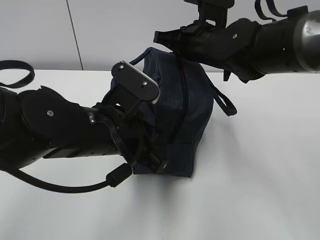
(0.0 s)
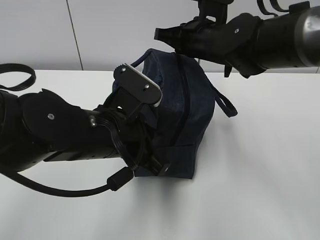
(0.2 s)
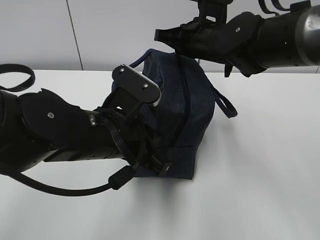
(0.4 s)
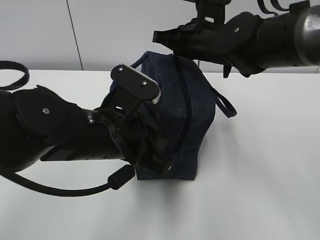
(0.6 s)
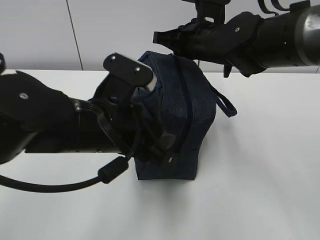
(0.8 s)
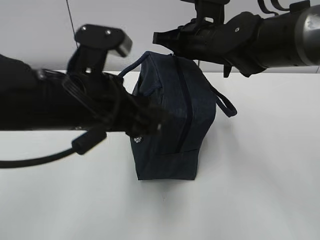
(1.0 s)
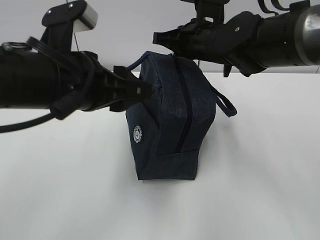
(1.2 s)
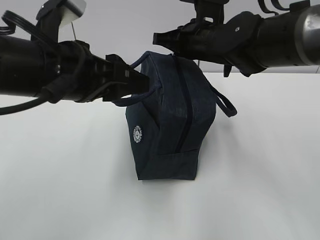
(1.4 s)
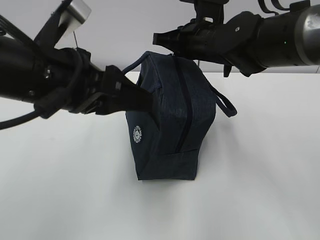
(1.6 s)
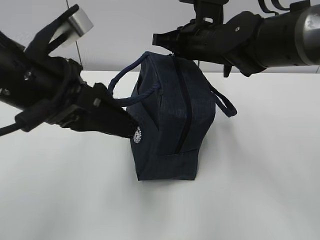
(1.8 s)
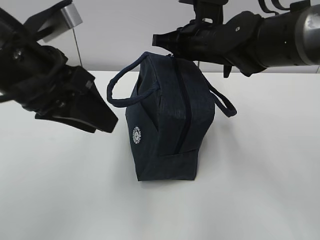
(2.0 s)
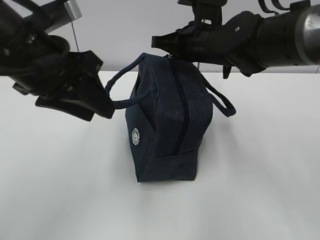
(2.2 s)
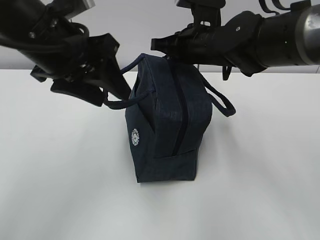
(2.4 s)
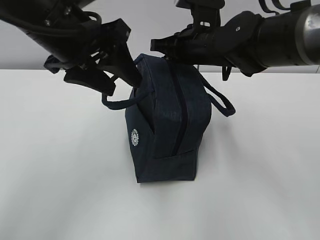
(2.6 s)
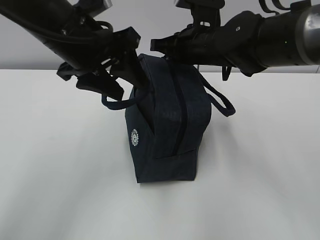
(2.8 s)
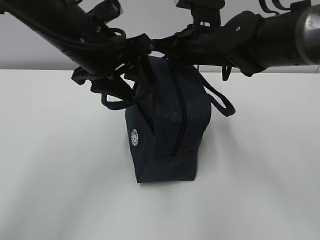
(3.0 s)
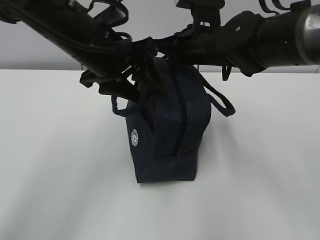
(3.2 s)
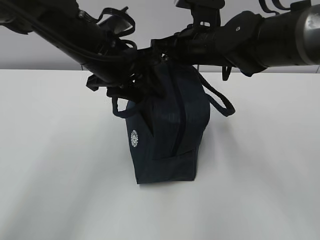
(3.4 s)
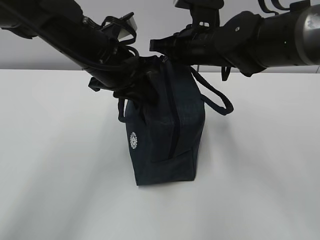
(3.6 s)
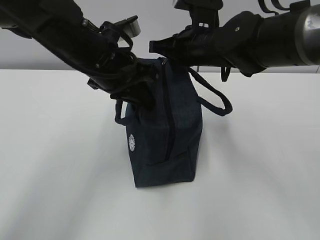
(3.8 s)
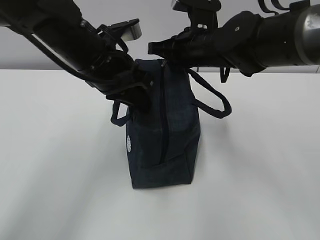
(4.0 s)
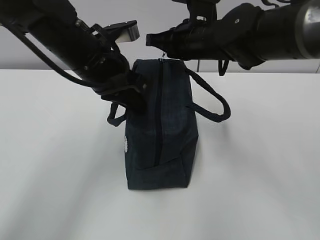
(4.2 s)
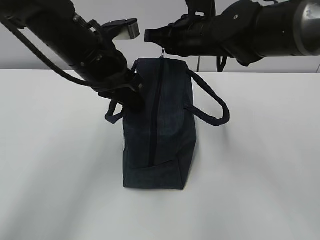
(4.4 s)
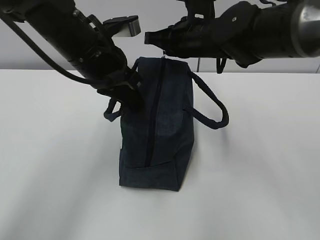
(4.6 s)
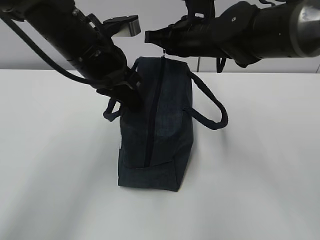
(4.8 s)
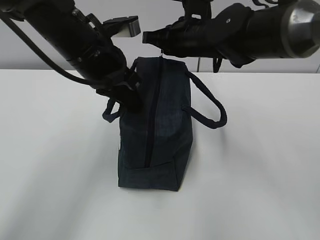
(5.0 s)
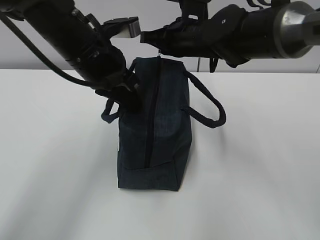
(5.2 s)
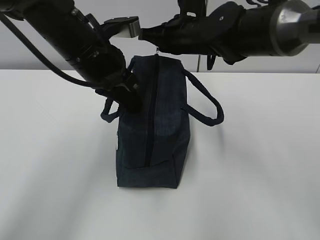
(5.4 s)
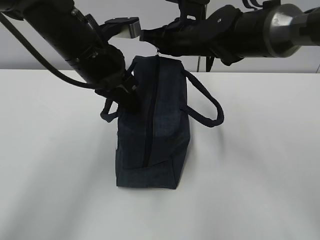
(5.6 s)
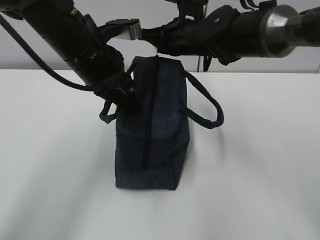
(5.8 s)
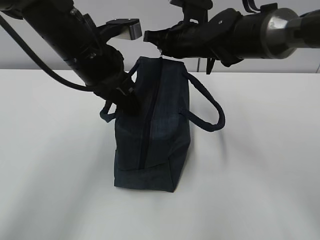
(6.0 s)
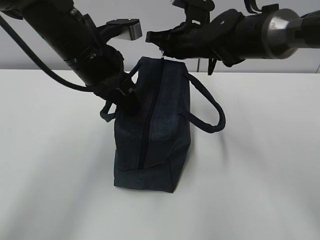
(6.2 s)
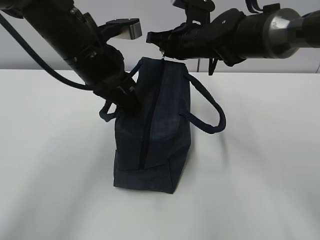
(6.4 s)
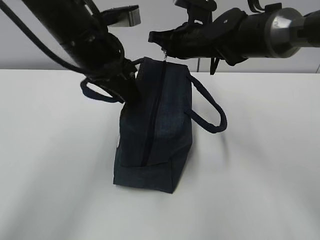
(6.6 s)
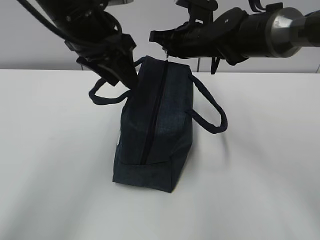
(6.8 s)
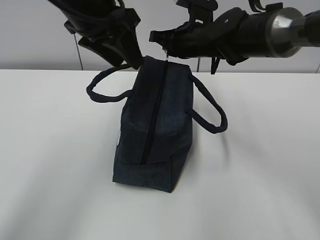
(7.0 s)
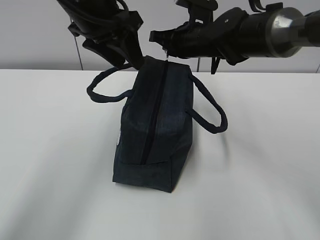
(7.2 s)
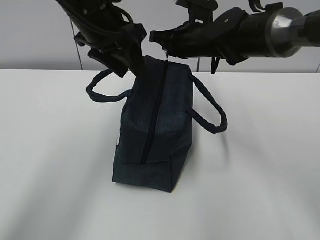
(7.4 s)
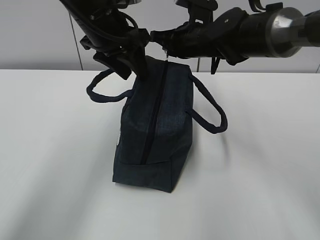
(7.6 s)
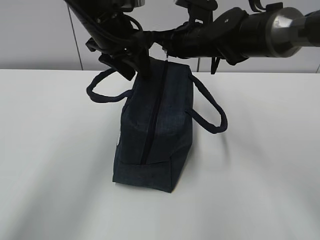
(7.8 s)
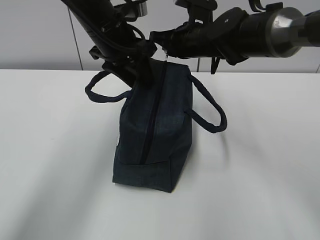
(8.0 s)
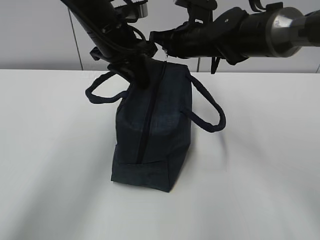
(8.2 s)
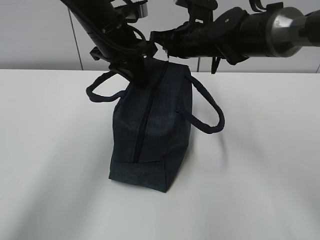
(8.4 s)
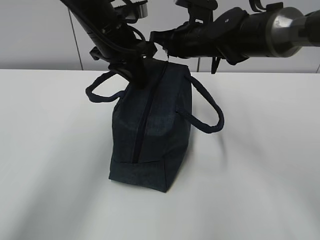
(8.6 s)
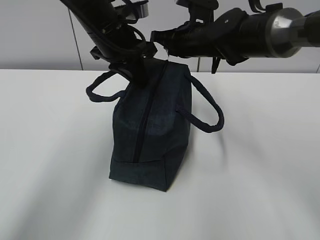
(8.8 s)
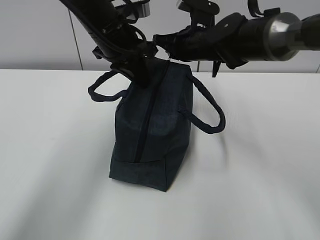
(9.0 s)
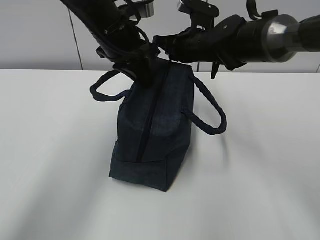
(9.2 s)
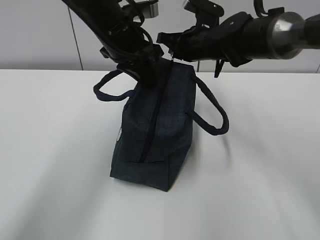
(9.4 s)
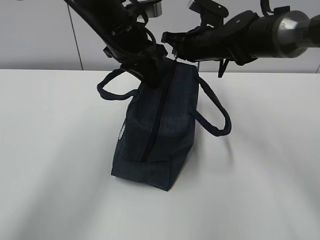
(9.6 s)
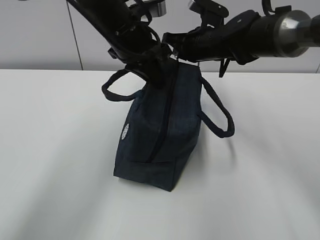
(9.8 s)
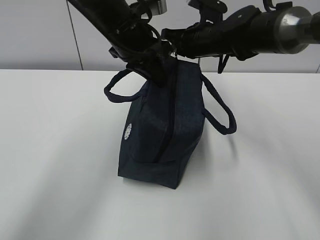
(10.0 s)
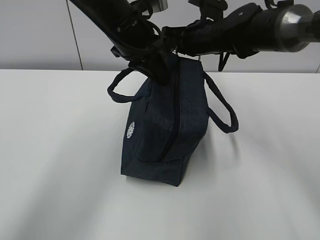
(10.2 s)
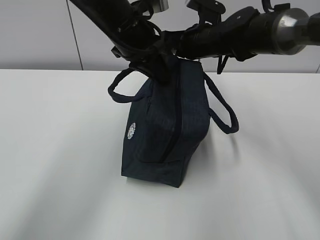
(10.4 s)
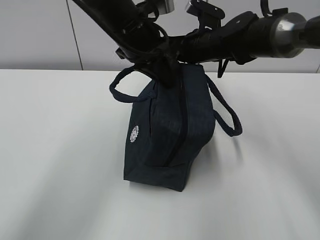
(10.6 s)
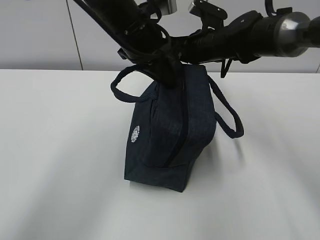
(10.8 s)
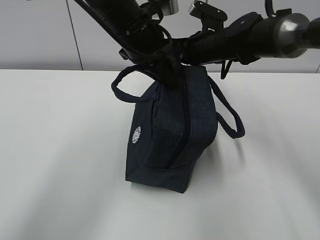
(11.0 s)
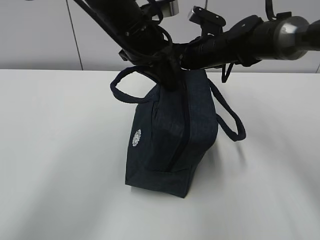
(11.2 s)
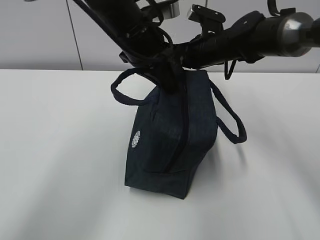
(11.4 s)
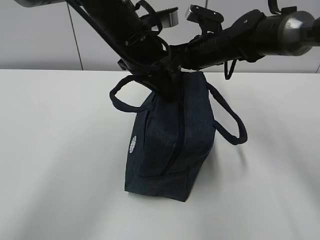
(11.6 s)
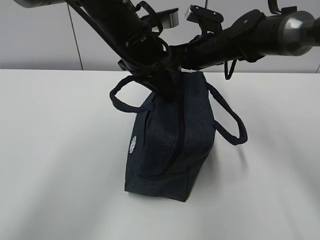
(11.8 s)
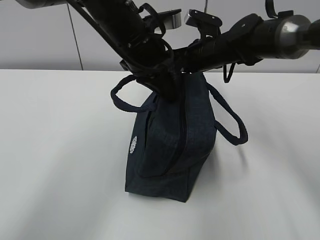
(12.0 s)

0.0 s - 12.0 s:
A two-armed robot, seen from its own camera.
0.0 s - 1.6 s: The left gripper goes approximately 10 cm upward and to the left, and opens up.
1.6 s - 3.0 s: The left gripper moves forward, about 10 cm.
3.0 s - 4.4 s: The left gripper closes its fingers.
4.4 s - 6.0 s: The right gripper shifts by about 5 cm.
6.0 s - 7.6 s: The left gripper is displaced forward by about 5 cm, and opens its fingers.
7.6 s - 9.0 s: The left gripper closes its fingers.
9.0 s - 12.0 s: The grippers make only small movements.

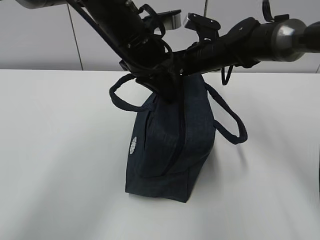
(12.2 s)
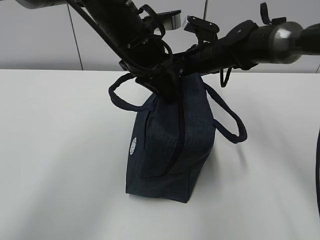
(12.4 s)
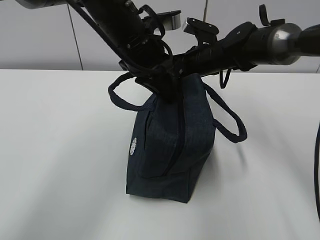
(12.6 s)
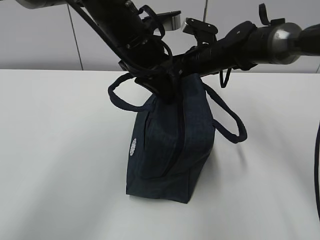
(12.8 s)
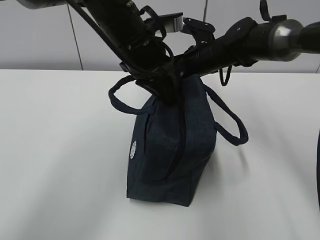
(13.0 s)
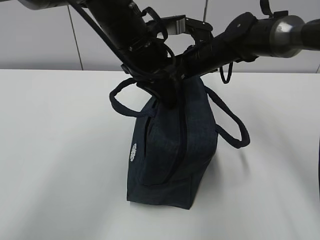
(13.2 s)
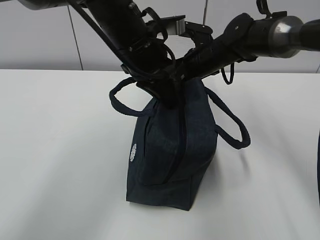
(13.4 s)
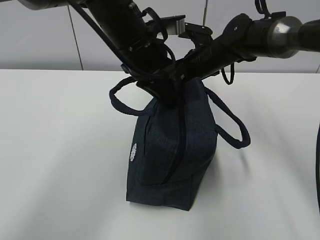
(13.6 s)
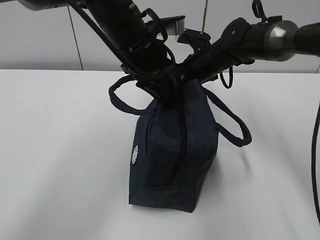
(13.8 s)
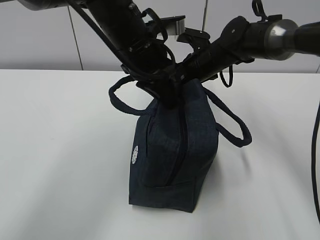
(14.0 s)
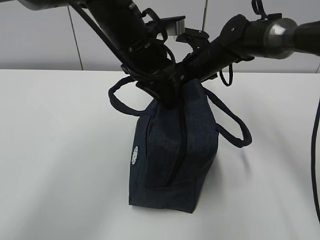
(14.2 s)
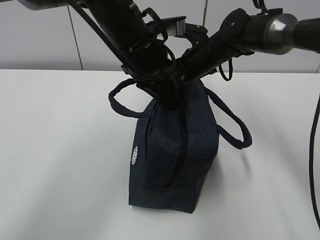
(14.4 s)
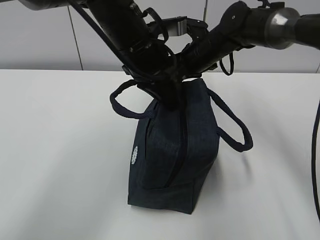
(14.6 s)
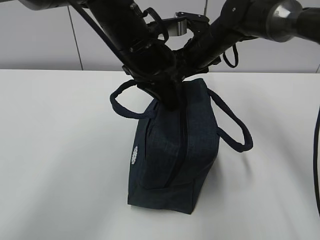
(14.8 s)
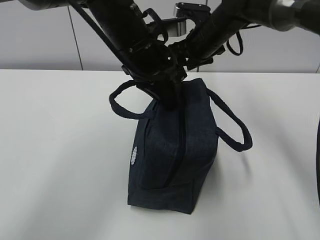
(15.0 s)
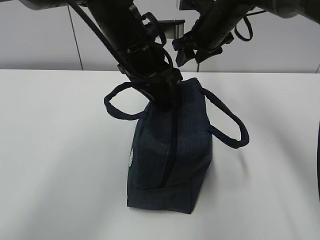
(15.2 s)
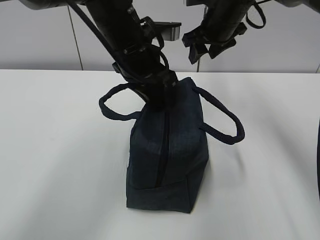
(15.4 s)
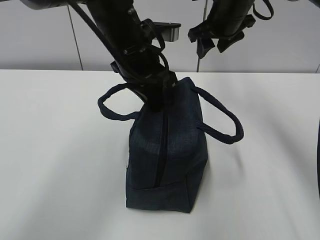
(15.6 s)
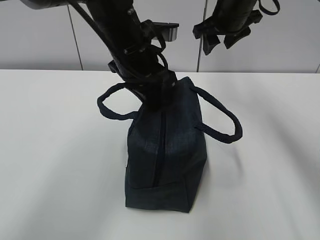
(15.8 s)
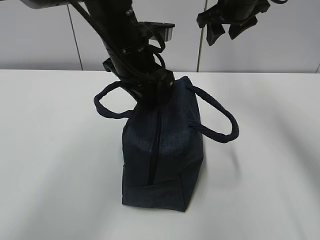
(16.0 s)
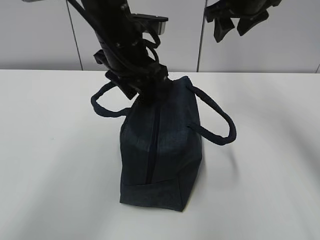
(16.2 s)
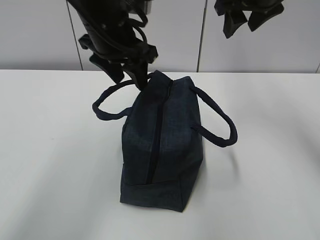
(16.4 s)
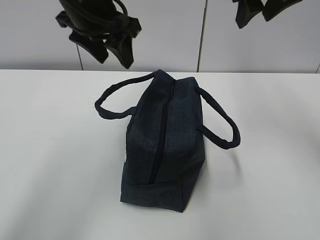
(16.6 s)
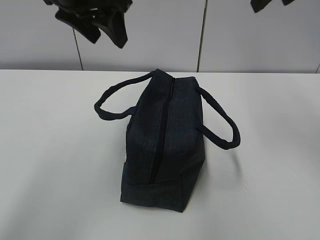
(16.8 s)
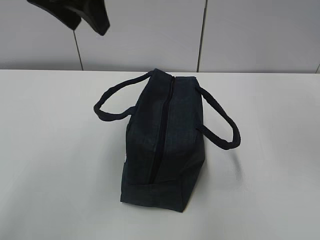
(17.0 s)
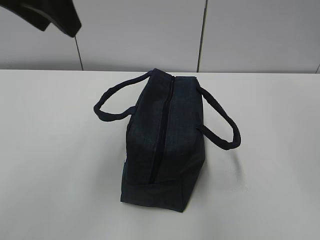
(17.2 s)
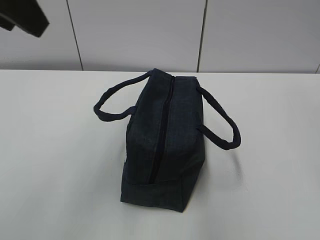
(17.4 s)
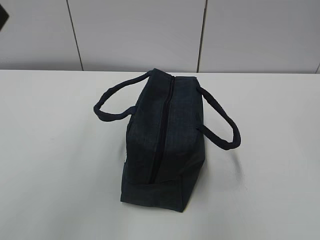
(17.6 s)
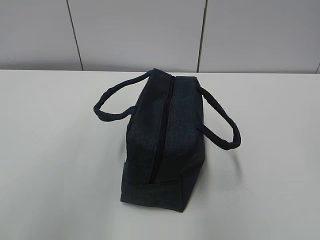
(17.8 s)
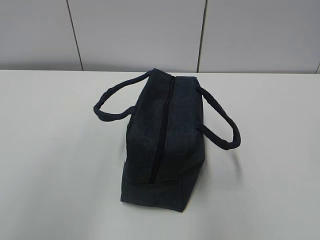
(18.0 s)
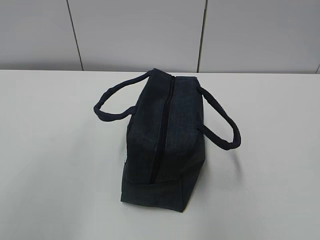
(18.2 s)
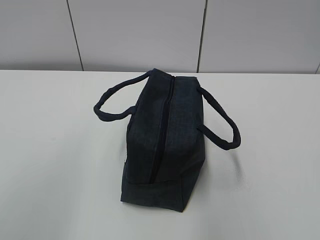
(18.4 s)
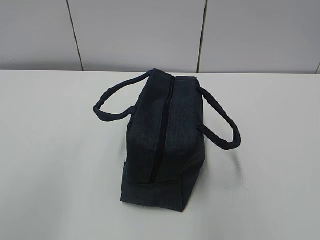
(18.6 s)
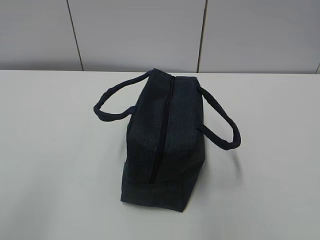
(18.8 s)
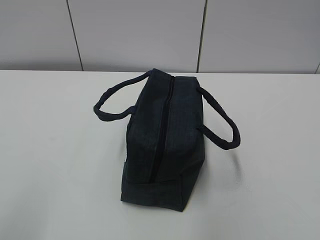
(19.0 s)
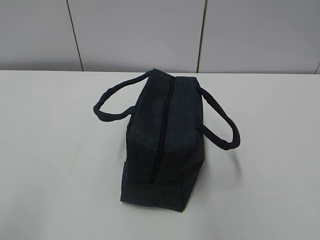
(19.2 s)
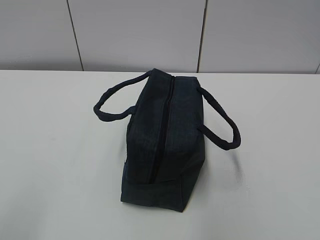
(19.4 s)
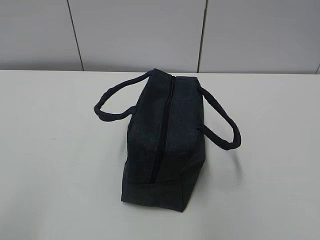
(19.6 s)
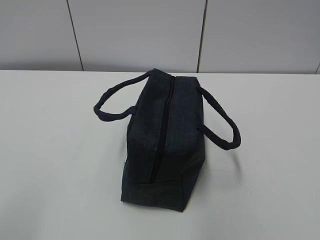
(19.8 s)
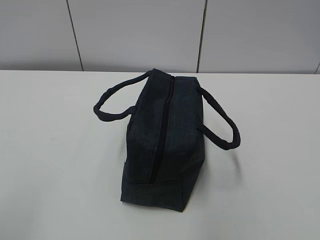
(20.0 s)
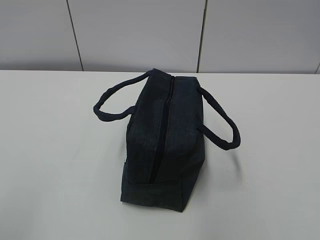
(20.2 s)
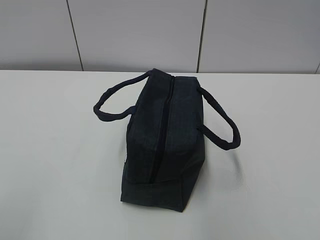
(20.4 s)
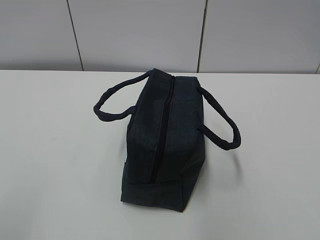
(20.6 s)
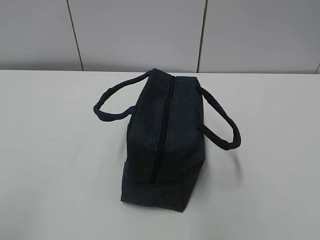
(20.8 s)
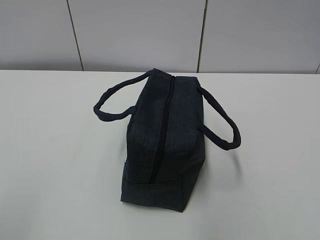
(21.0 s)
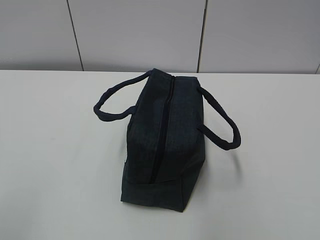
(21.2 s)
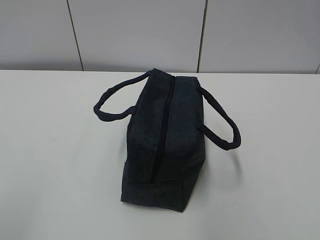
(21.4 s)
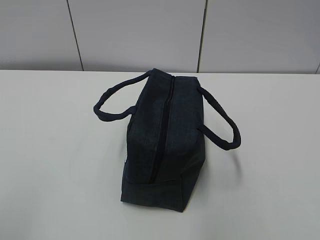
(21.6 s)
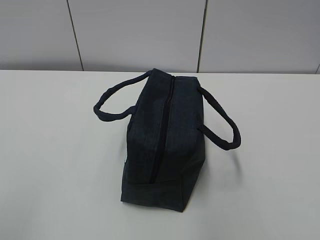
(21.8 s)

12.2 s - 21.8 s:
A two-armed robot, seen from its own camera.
12.2 s - 13.8 s: The grippers move only a little.
13.8 s - 15.4 s: The right gripper moves upward, approximately 10 cm, and opens up.
15.4 s - 17.0 s: The right gripper is displaced backward and upward by approximately 25 cm; the left gripper shifts some 15 cm upward and to the left, and opens.
17.0 s - 18.6 s: The right gripper moves backward, some 30 cm. The left gripper shifts approximately 35 cm backward and to the left, and closes.
20.2 s - 21.8 s: Neither gripper changes place.
